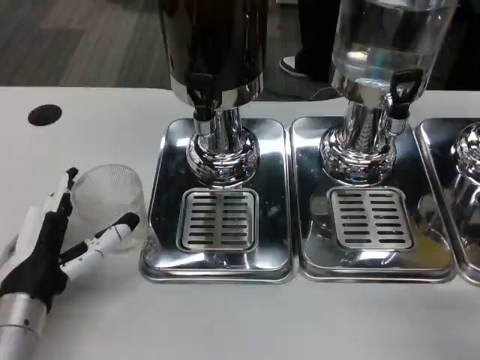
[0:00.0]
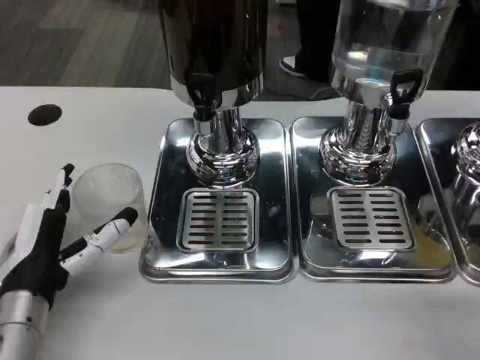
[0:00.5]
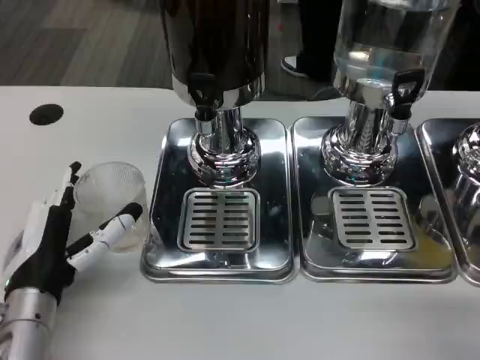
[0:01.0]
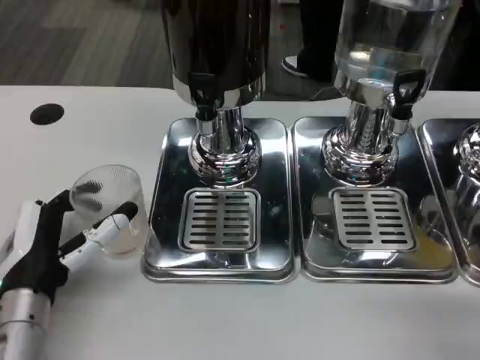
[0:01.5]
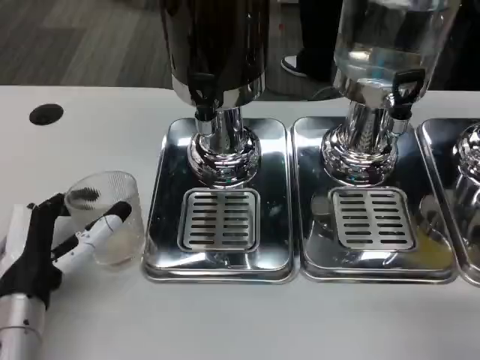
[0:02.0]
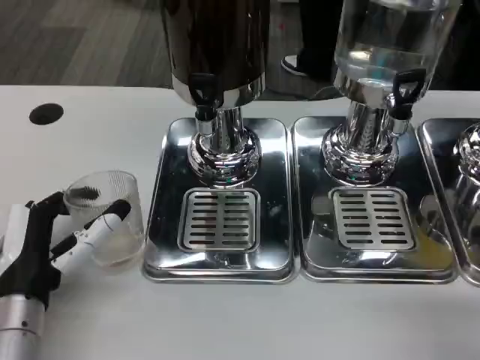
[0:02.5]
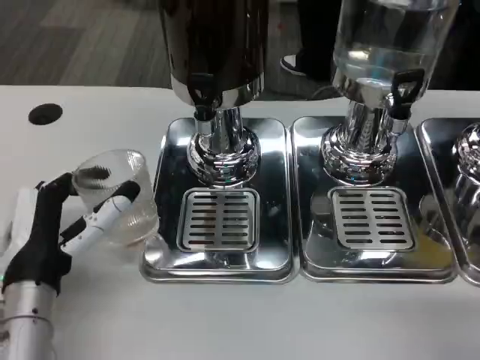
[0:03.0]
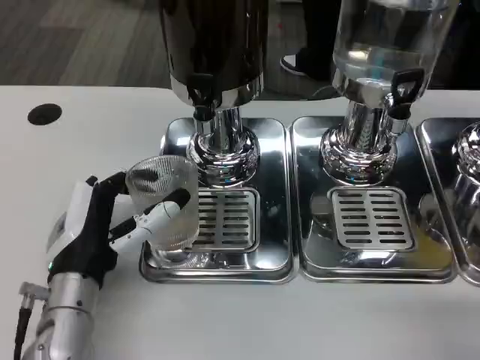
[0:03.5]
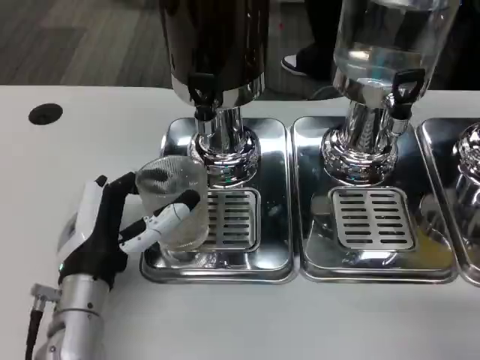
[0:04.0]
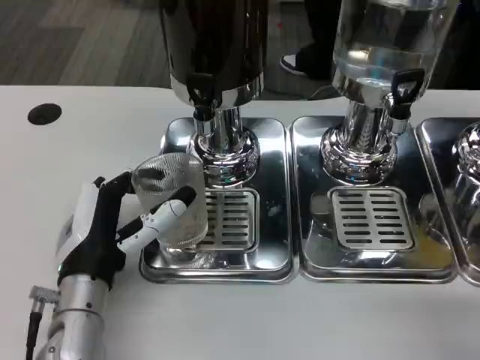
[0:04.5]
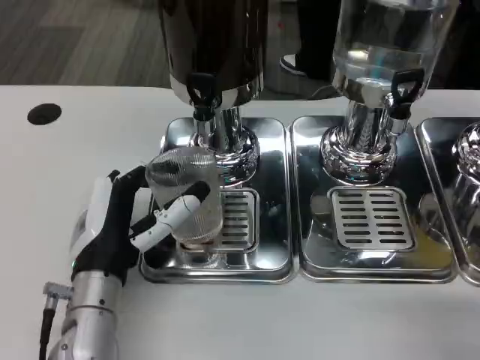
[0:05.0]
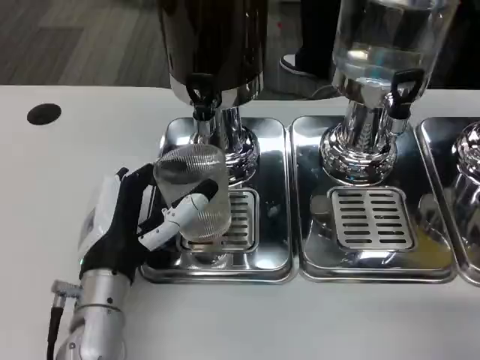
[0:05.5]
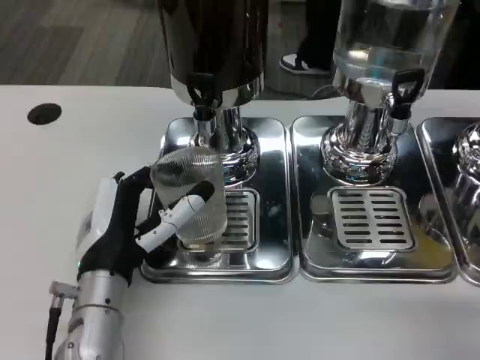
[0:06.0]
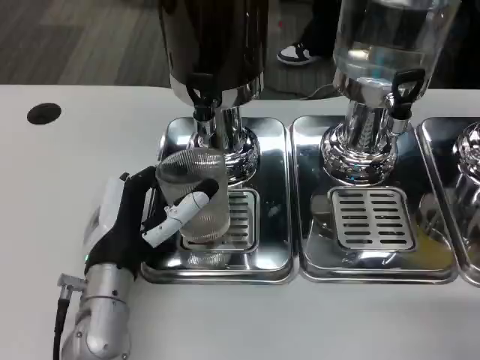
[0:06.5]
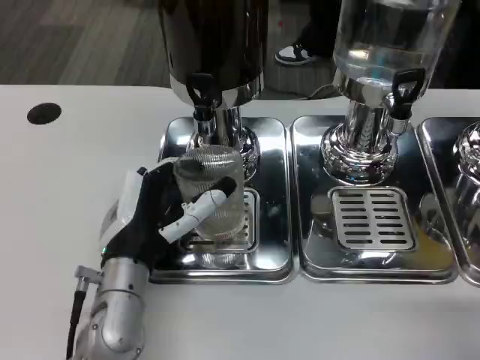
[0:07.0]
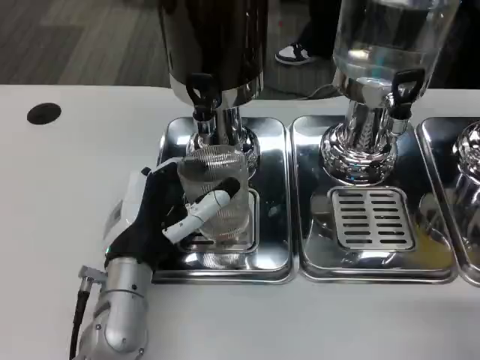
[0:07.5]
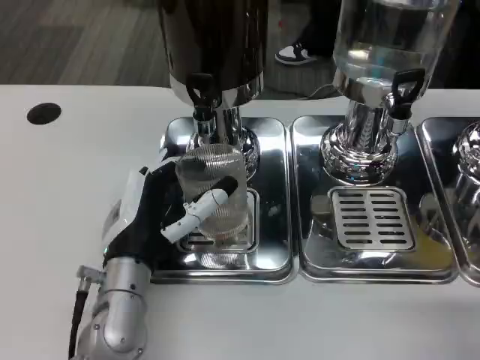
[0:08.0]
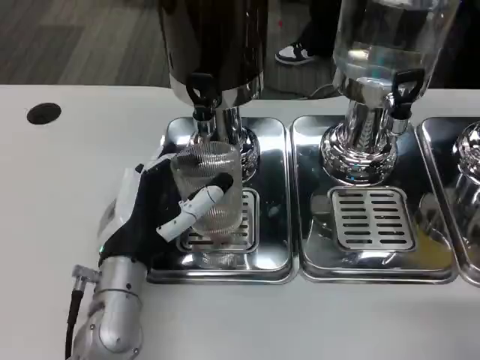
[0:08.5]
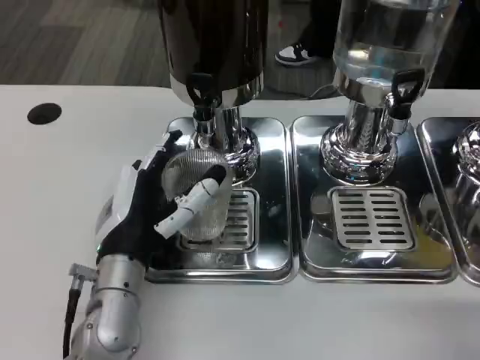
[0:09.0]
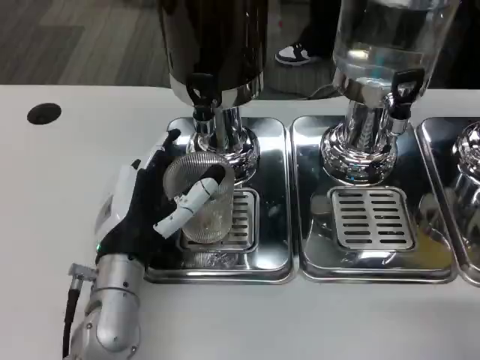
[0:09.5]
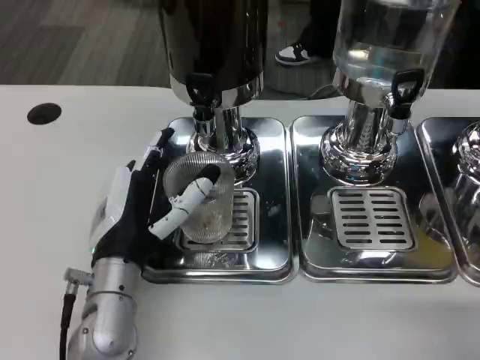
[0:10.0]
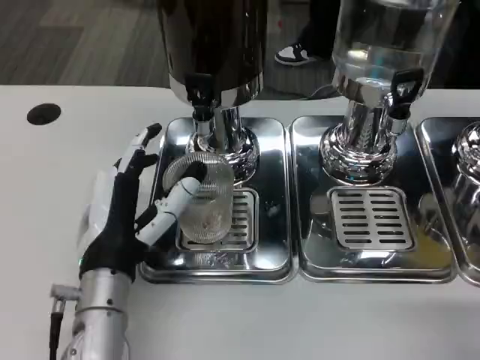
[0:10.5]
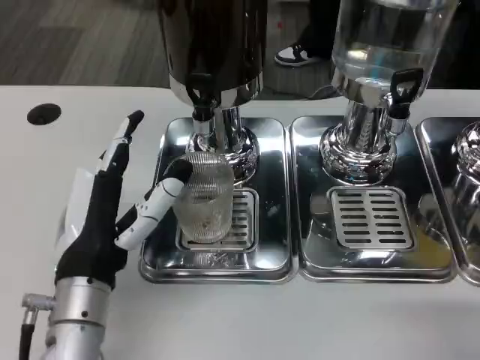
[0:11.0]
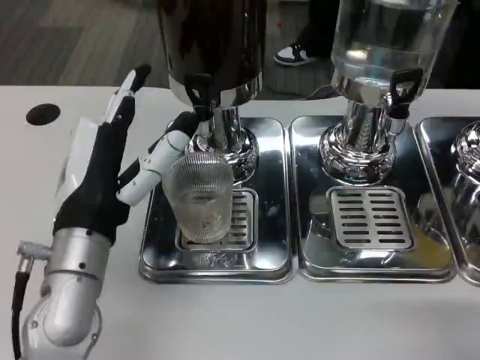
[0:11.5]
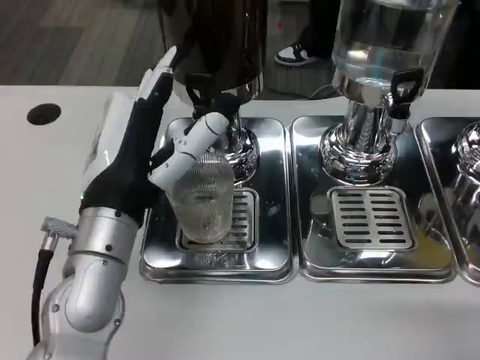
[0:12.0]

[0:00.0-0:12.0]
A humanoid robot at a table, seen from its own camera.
Task of the whole recording: Grasp the cup under the faucet to collect the drink, then remove the cup.
0:00.0 to 0:02.0: The hands make only small movements.
0:02.0 to 0:04.0: The left hand moves to the right, roughly 5 cm.
0:04.0 to 0:08.0: The hands move only a little.
0:08.0 to 0:10.0: Both hands stay about where they are.
0:10.0 to 0:12.0: The left hand is displaced upward by about 10 cm.

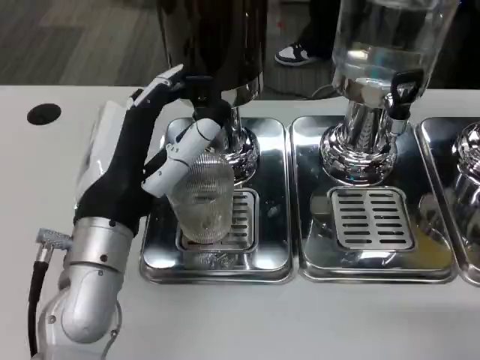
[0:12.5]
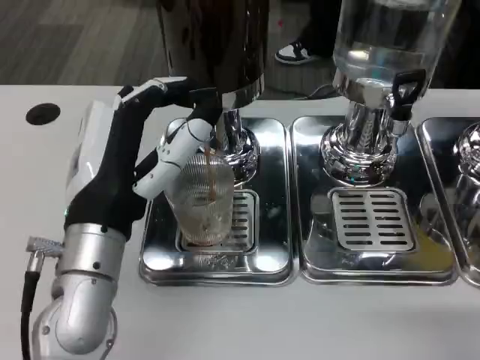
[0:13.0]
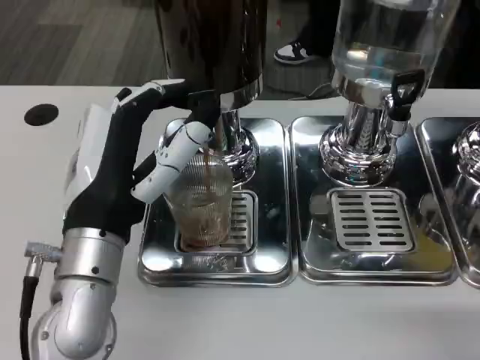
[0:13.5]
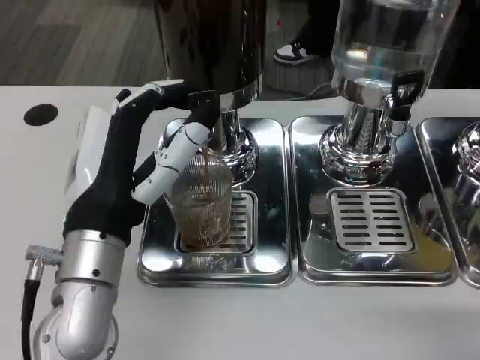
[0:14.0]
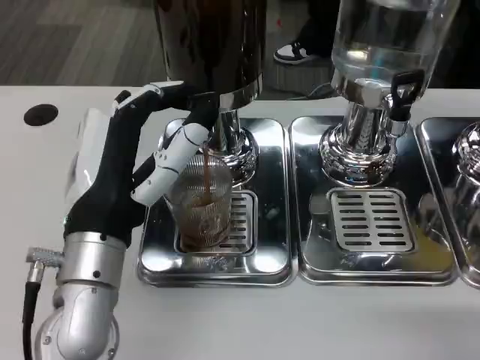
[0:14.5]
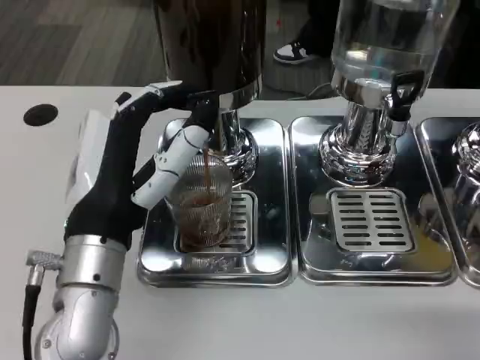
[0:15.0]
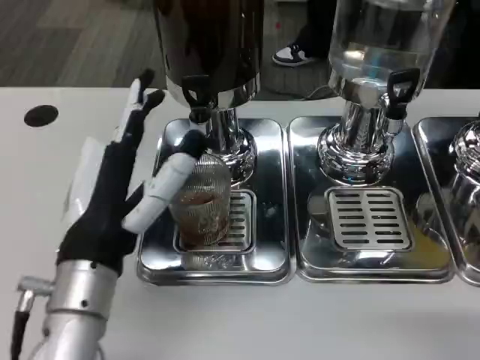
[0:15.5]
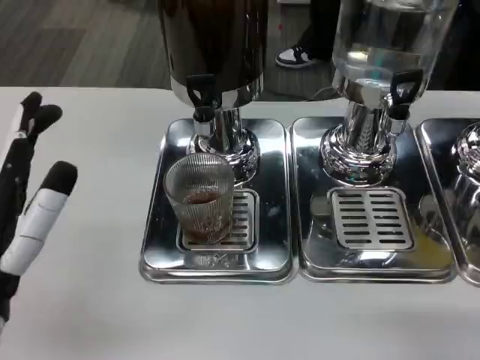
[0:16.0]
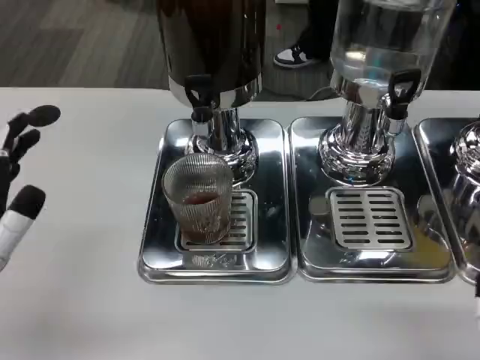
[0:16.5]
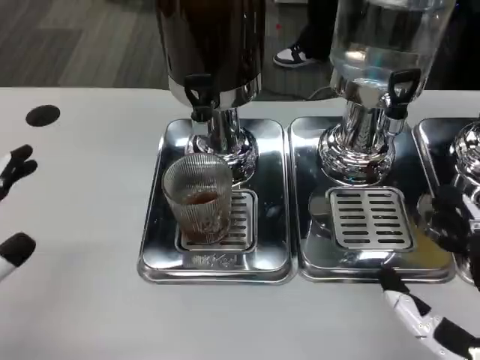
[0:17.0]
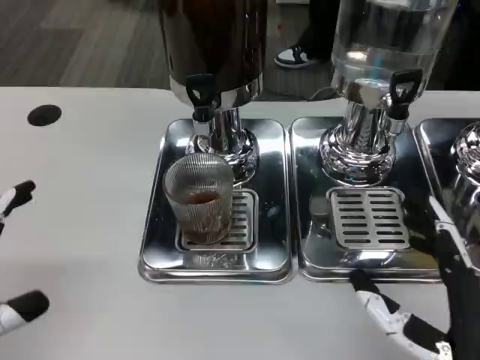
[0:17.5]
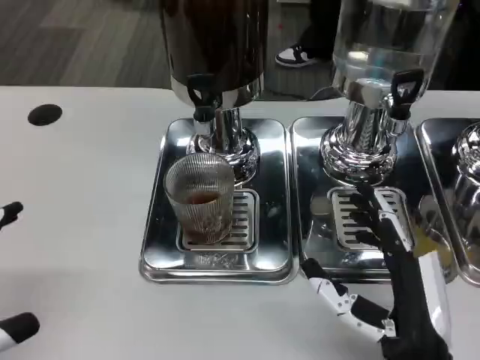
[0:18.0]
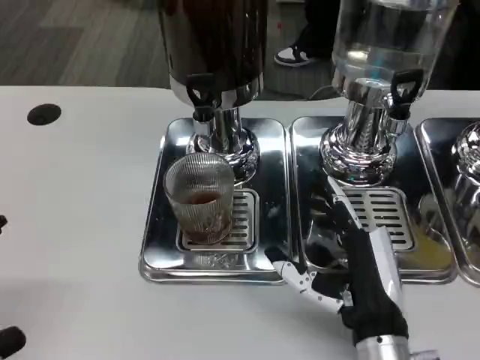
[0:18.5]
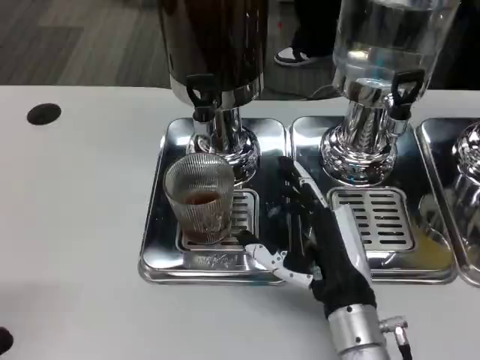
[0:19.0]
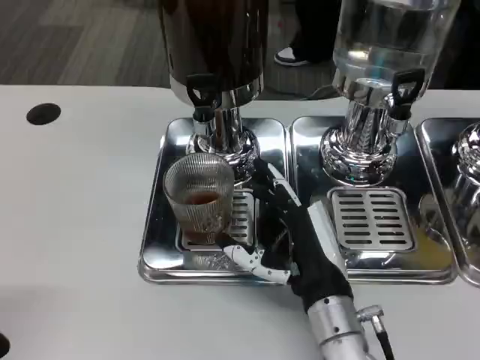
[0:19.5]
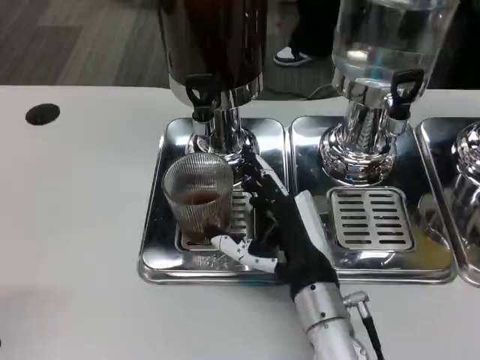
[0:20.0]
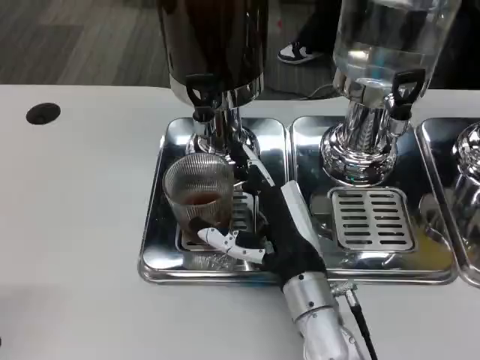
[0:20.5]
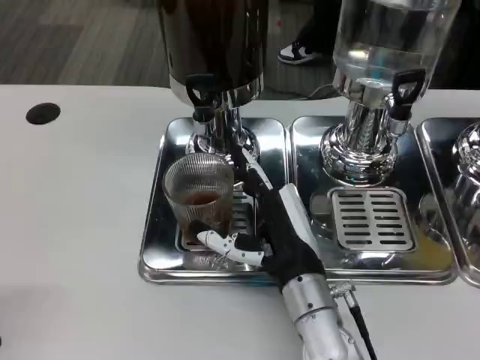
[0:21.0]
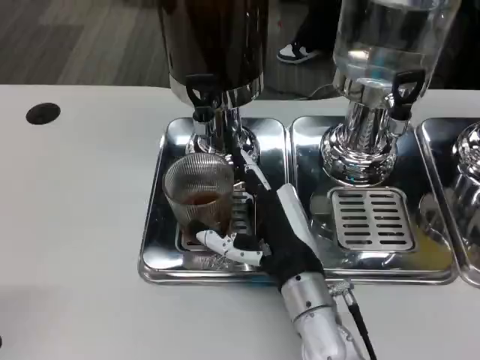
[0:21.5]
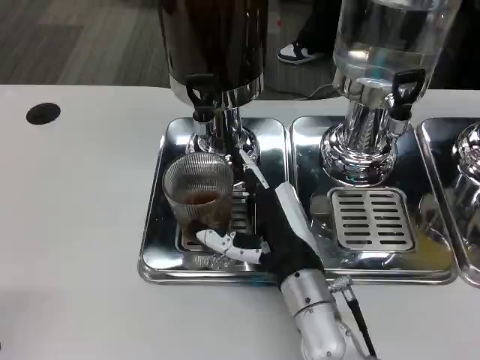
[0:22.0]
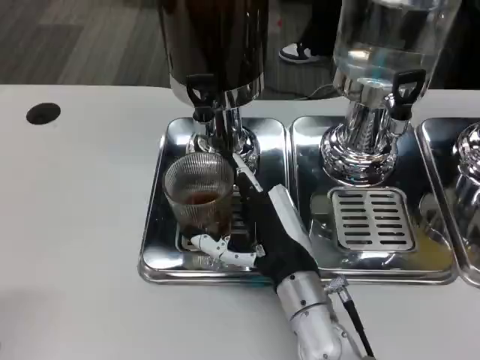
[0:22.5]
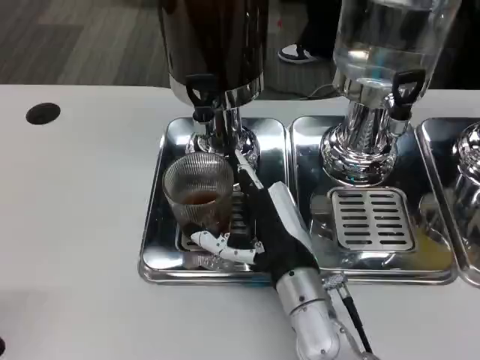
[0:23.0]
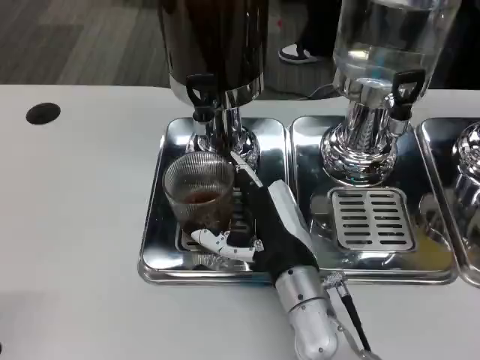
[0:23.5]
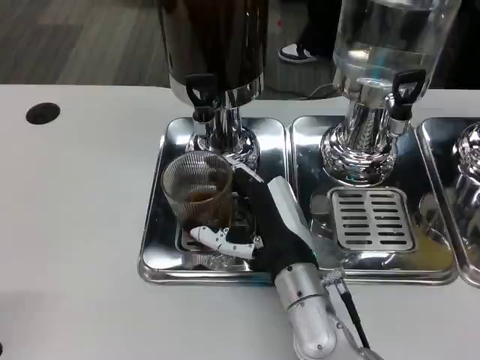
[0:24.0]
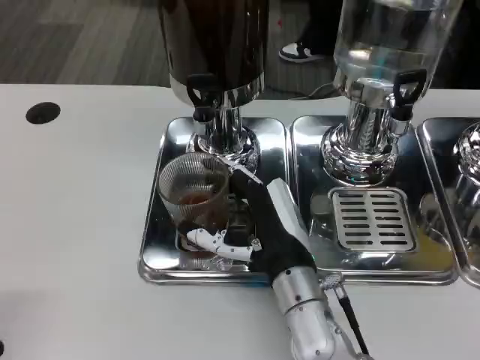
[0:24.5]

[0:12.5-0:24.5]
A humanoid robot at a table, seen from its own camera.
Task of the whole recording: Grasp the cup under the faucet to collect the drink, then remove the cup.
0:12.5 to 0:14.5: Both hands stay put.
0:14.5 to 0:16.5: The left hand heads to the left and backward, covering approximately 15 cm.
0:16.5 to 0:18.5: The left hand goes roughly 10 cm backward and to the left. Meanwhile the right hand travels forward, to the left and downward by roughly 15 cm.
0:18.5 to 0:20.5: The right hand shifts approximately 10 cm forward and to the left.
0:20.5 to 0:22.5: The hands stay close to where they were, moving slightly.
0:22.5 to 0:24.5: Neither hand changes place.

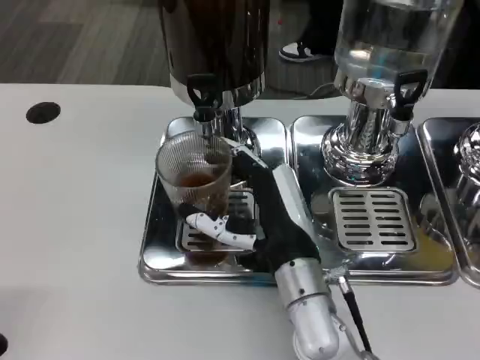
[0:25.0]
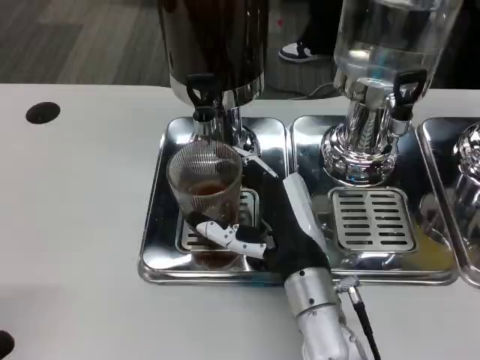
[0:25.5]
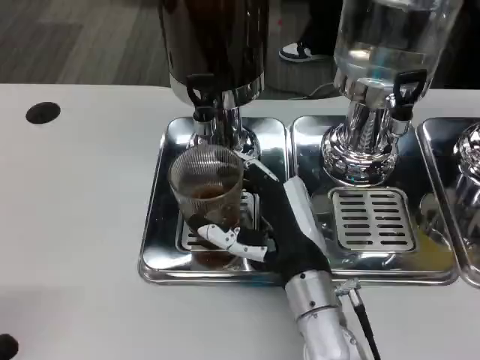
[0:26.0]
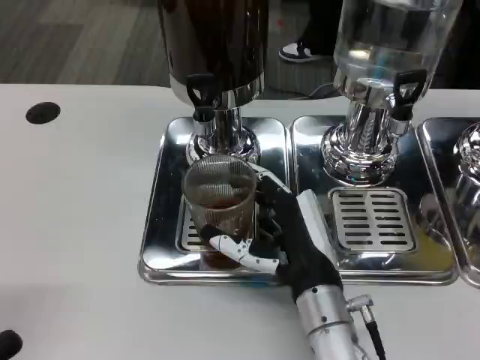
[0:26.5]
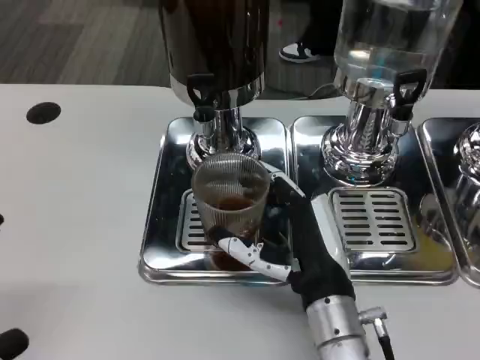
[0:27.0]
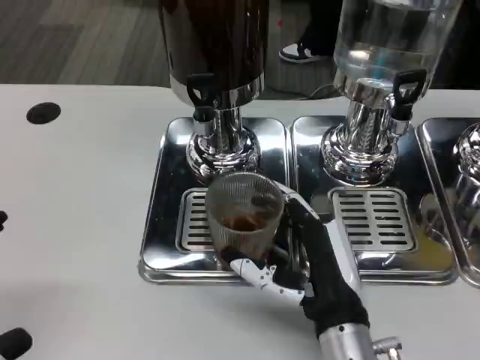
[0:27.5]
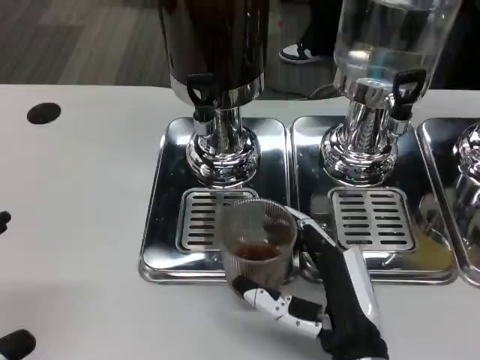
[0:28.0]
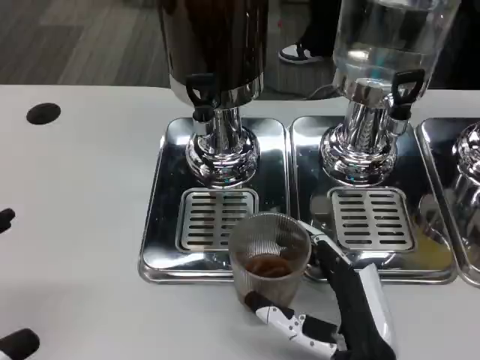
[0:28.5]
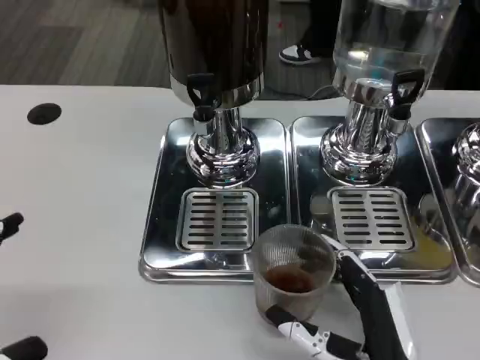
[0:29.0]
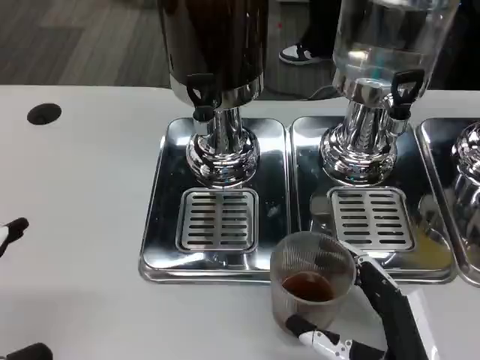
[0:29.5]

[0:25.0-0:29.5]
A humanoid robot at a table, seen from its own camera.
Task of the whole recording: Grasp the cup under the faucet to collect the drink, then remove the cup.
0:25.0 to 0:27.0: The hands move only a little.
0:27.0 to 0:29.5: The right hand heads backward and to the right, covering some 10 cm.
